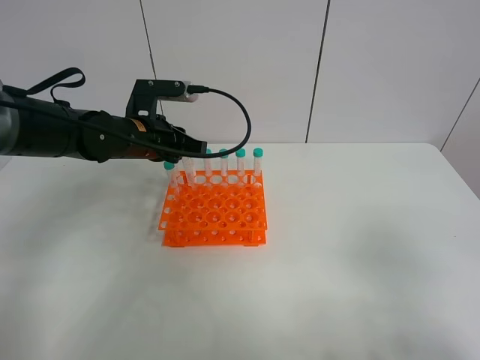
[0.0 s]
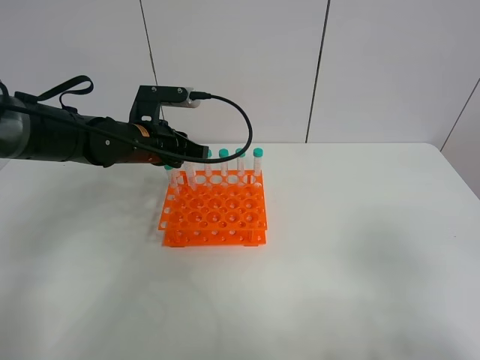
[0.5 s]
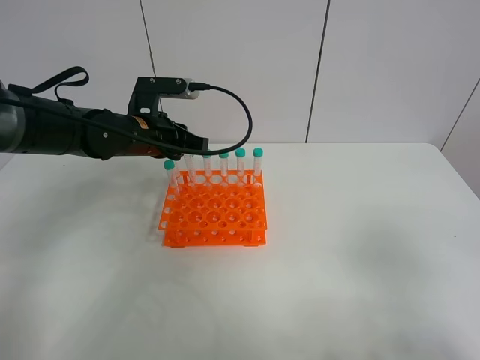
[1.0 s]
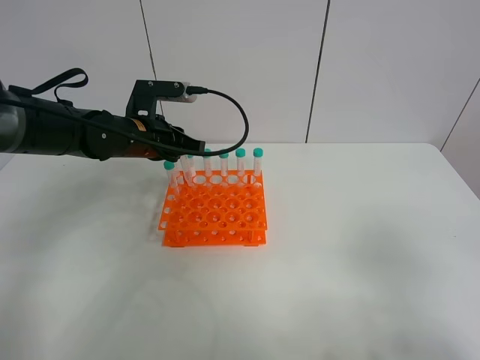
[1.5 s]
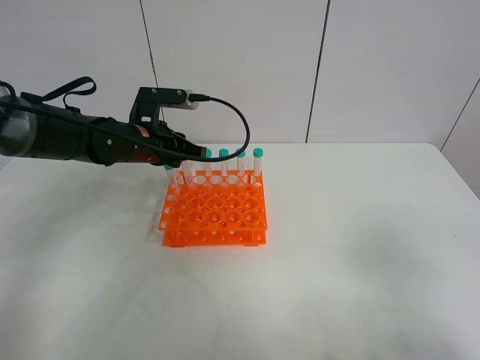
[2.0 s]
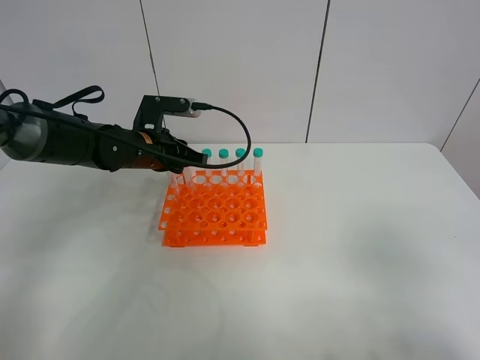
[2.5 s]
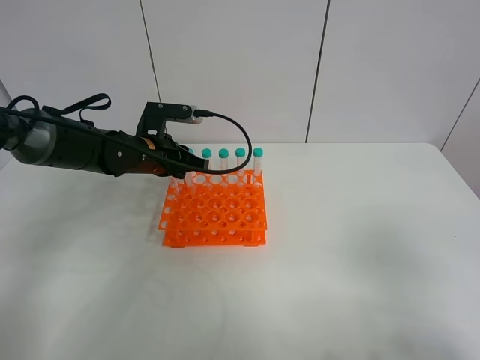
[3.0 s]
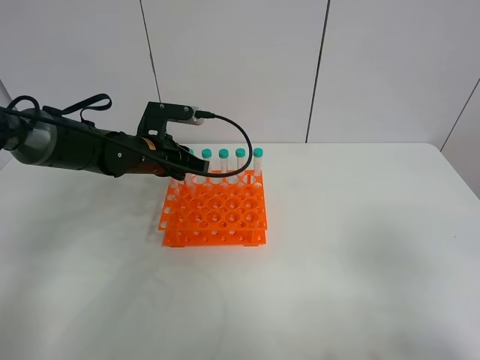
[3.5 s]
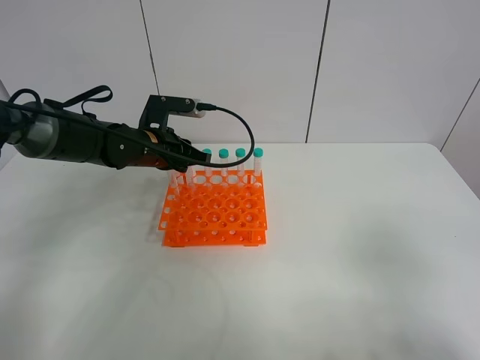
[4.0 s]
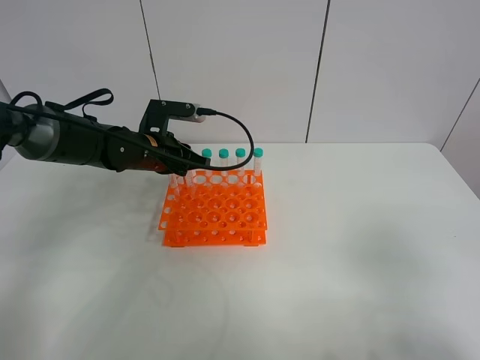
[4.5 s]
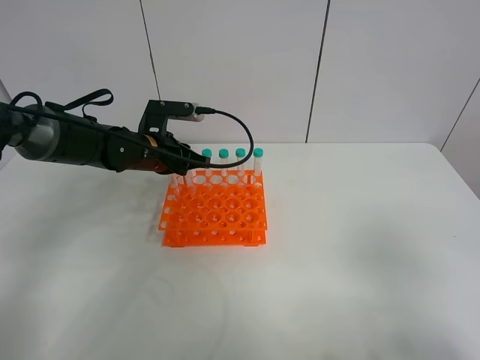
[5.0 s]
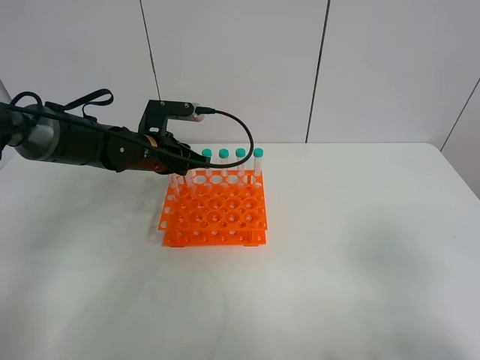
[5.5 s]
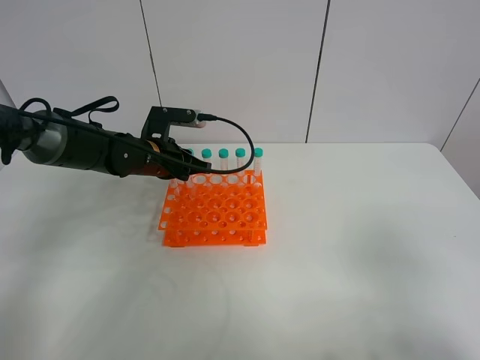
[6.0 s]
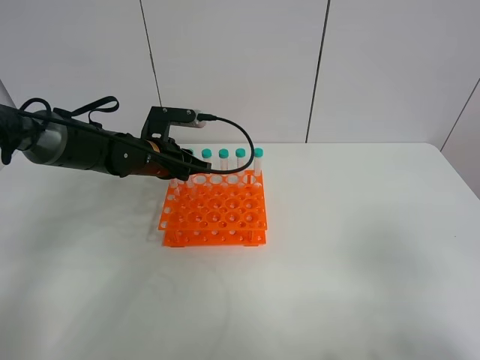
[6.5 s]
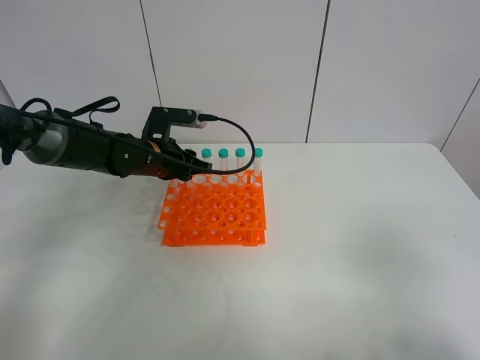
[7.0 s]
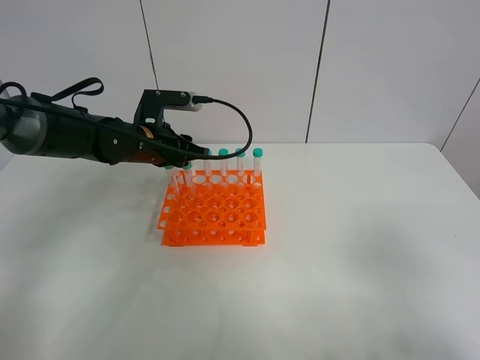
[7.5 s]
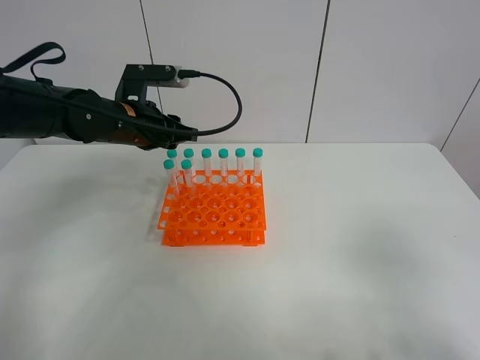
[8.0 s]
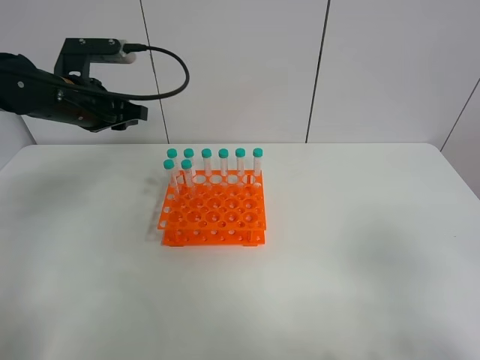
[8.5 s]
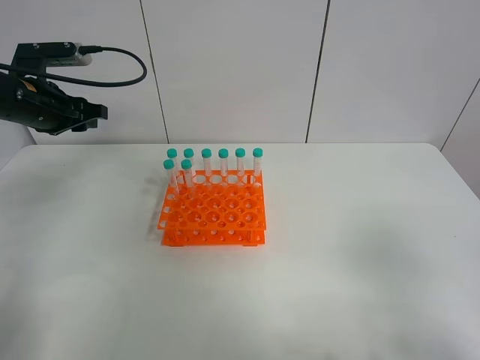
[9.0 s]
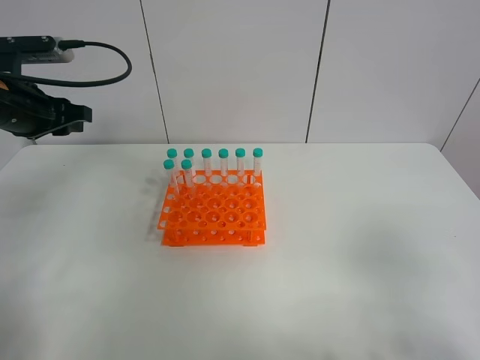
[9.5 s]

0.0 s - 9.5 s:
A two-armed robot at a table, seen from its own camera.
Task of the whole recording: Put the test tube on the table back onto the test tube rack.
Step, 0.0 s - 8.0 s: Place the test tube on the test tube rack with the left gripper.
0.0 s - 4.0 s: The grippers make only small movements.
4.0 s - 5.5 s: The two grippers keep their place.
5.5 s - 7.5 s: The left gripper opens.
7.5 s - 9.5 s: The left gripper heads to the left, upward and backward, covering approximately 20 cm.

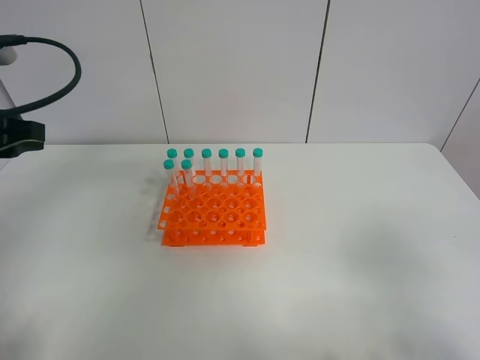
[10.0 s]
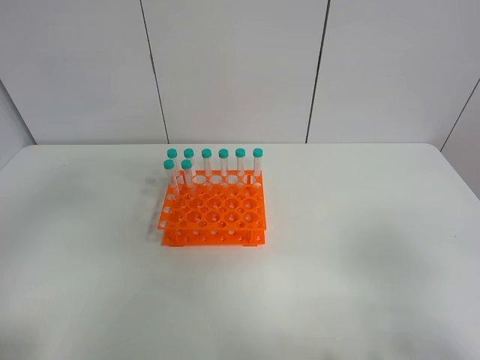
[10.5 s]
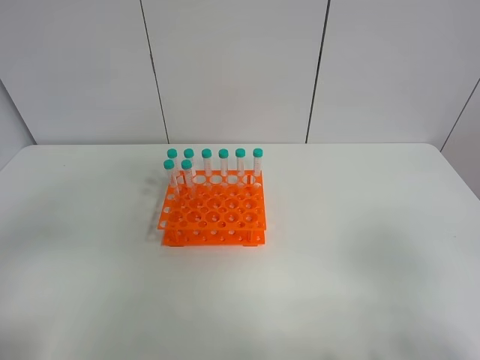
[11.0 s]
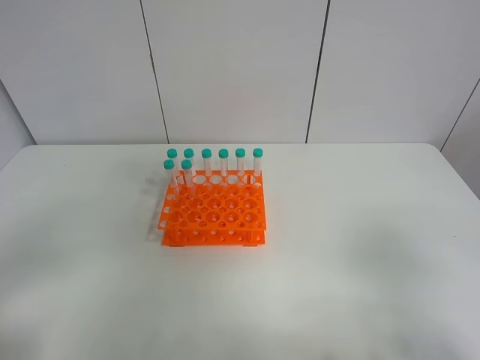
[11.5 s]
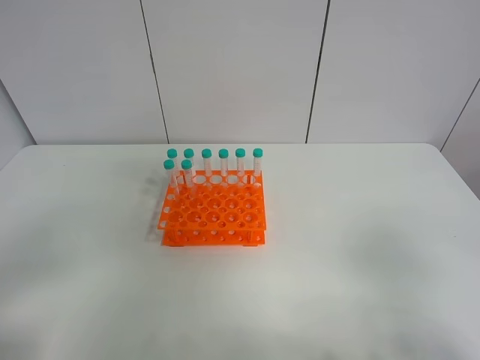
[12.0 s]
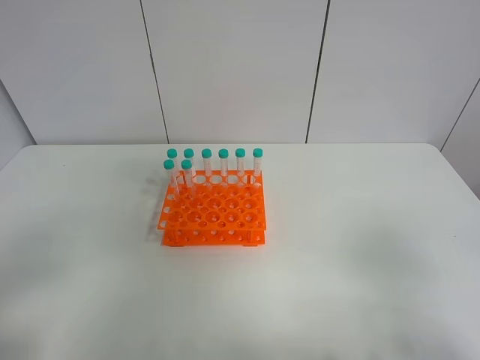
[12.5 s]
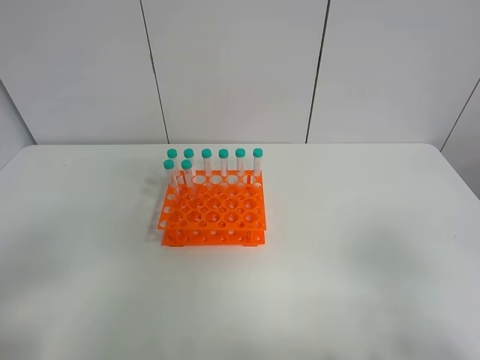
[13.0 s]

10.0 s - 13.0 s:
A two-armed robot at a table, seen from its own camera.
Task of the whole recording: Put the test tube on the table back onto the test tube rack.
10.0 s - 11.5 s: The left gripper is displaced backward by roughly 20 cm.
